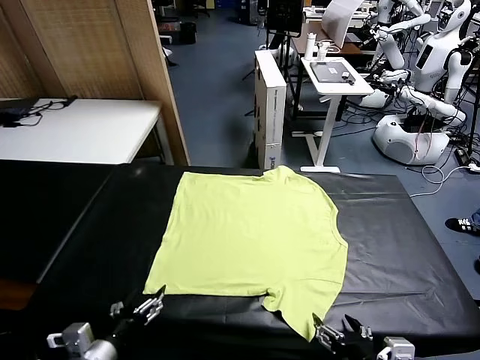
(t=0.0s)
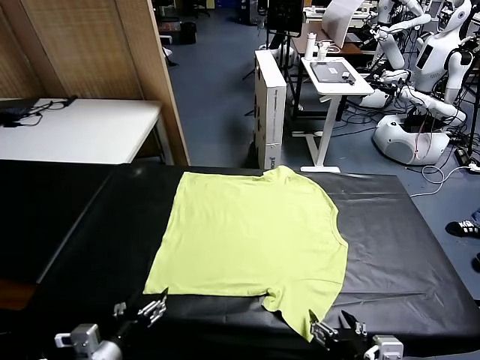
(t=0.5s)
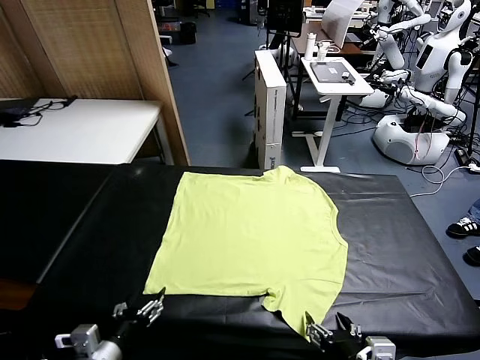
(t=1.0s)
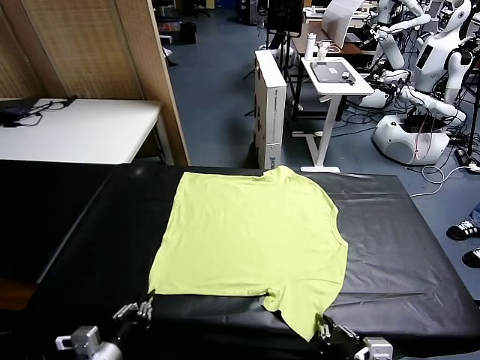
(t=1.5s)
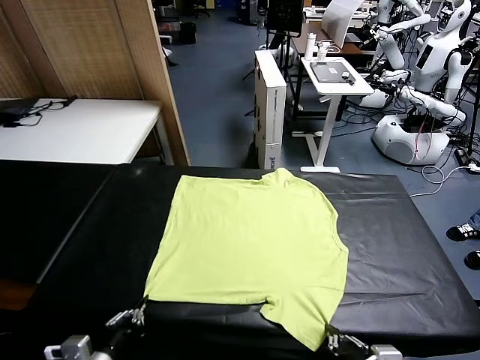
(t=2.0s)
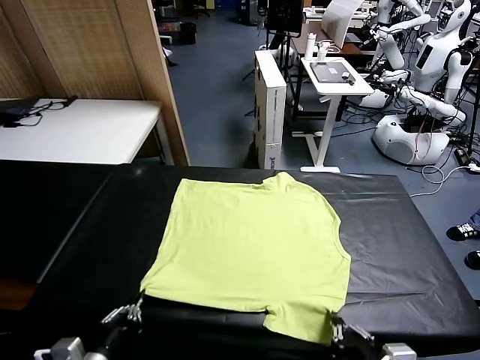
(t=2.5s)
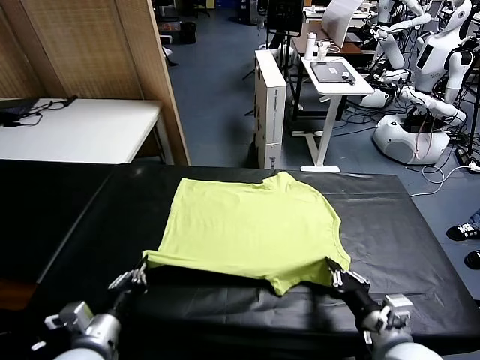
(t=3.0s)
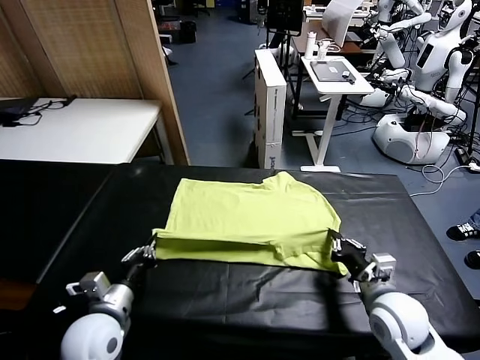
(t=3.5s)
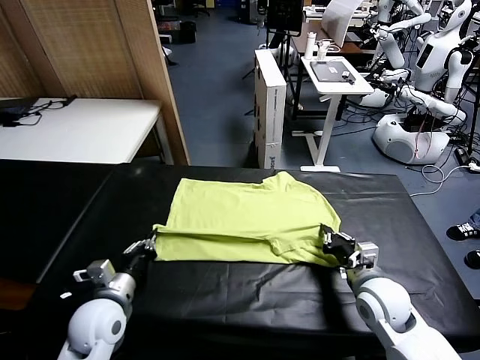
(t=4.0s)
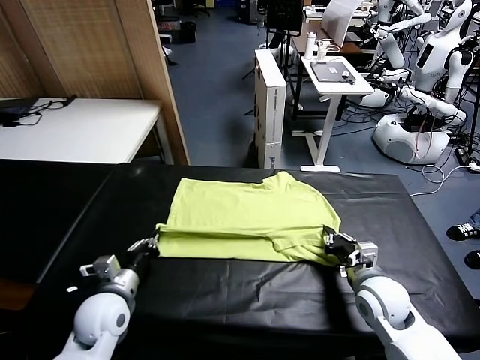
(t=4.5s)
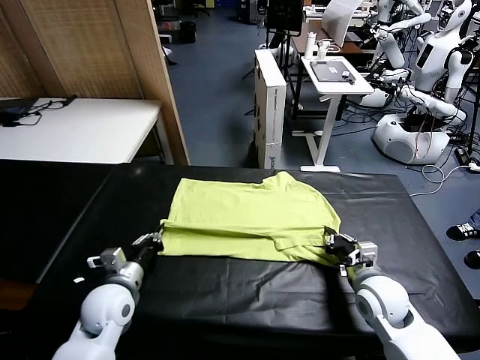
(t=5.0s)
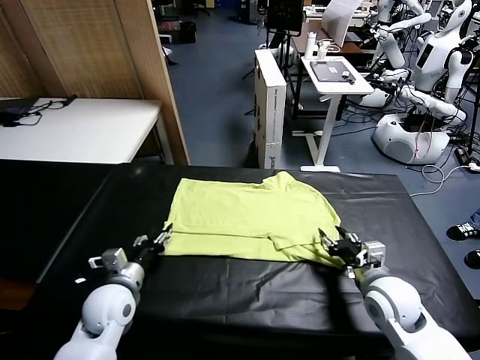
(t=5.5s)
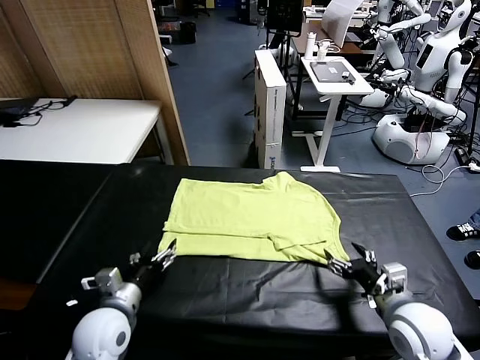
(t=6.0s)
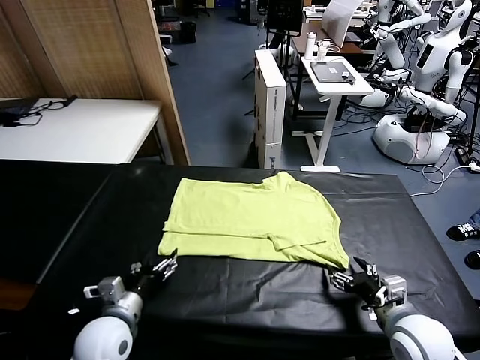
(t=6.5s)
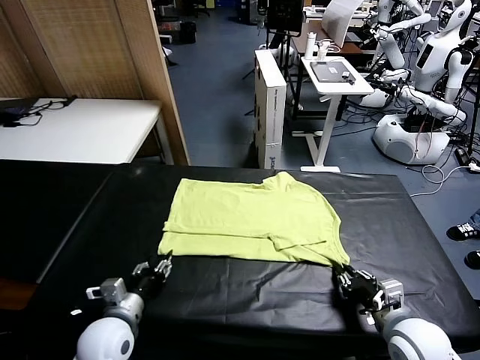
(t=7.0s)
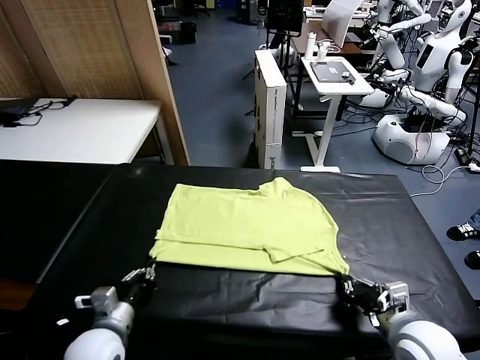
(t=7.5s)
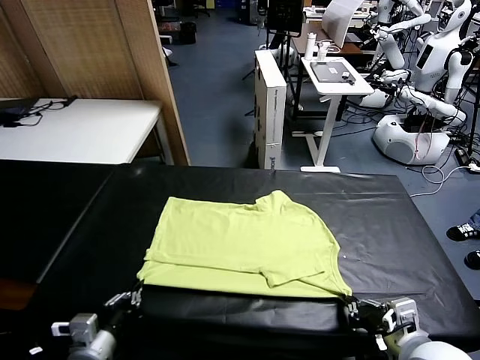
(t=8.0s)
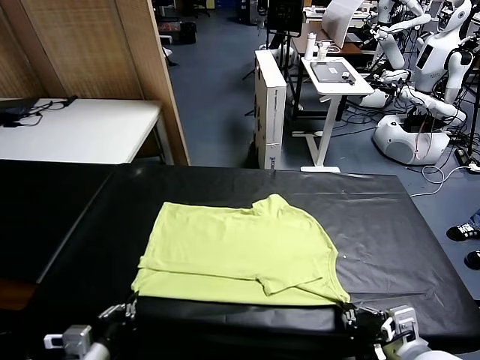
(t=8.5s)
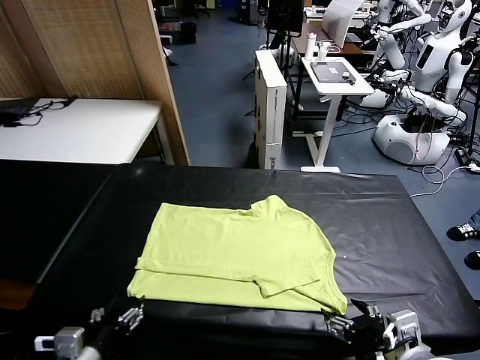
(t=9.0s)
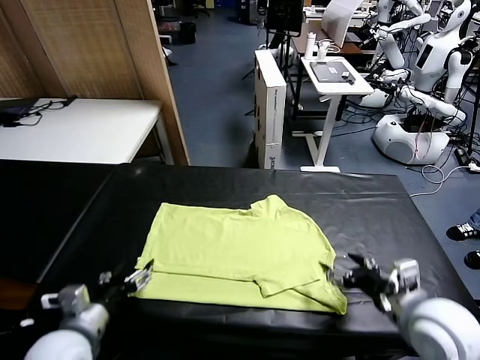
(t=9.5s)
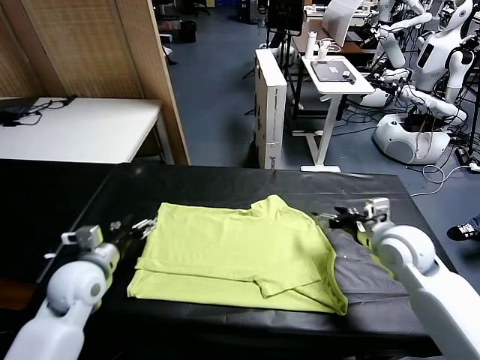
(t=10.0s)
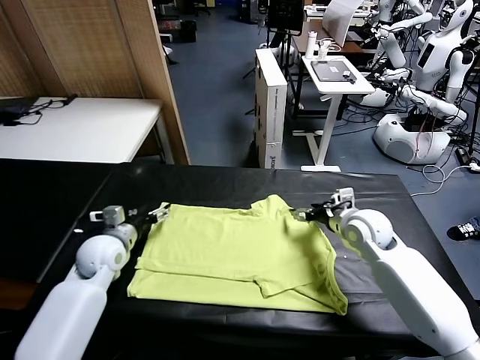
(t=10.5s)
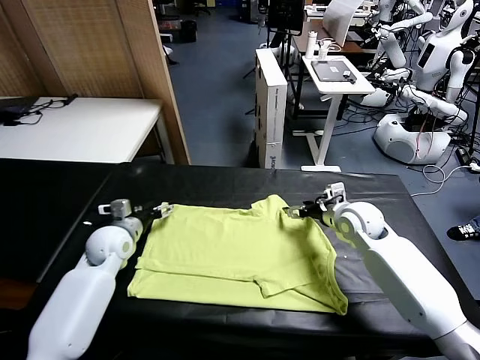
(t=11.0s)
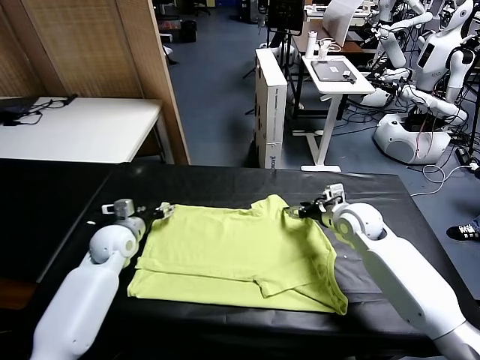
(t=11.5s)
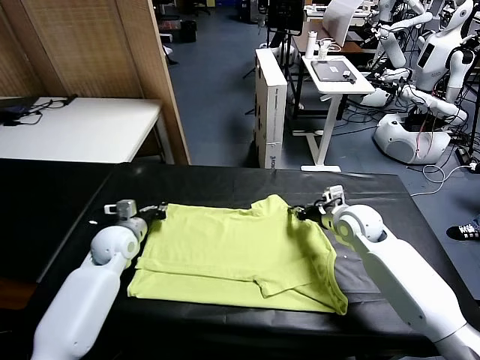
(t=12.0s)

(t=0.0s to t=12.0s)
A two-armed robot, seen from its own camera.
Task of the whole recording: fold and organize the clothes.
Step, t=0.0s - t=1.5s: use both grippers simultaneously to clamp the lower edge of the clothing fabric.
Step, t=2.0s - t=5.5s: use both grippers to drag the lower edge of the fabric forward and fold it over the upper edge.
Step, t=6.0s - t=9.0s: Drag the clothes downward with both gripper.
t=2.0s - t=4.0s: The two grippers go about 20 cm forward.
t=4.0s - t=6.0s: The right gripper moves backward, some 10 cm, and opens its fingers. The left gripper opens up.
t=6.0s - t=8.0s: The left gripper shifts approximately 10 cm backward, and closes its fingers; the right gripper heads backward and upward, covering about 10 cm, and closes its fingers.
t=8.0s - t=10.0s: Both grippers move forward, about 25 cm. The left gripper opens. The right gripper opens.
t=10.0s - t=12.0s: The right gripper closes up. The left gripper shifts roughly 10 cm forward, and closes.

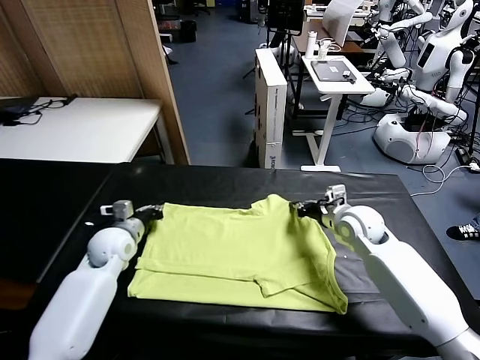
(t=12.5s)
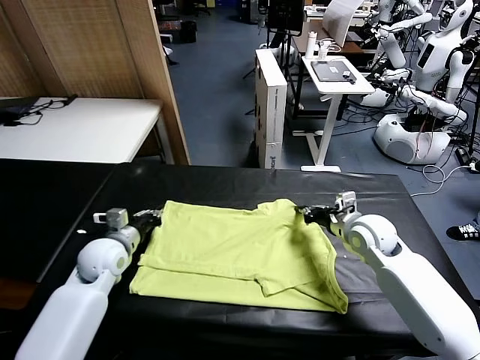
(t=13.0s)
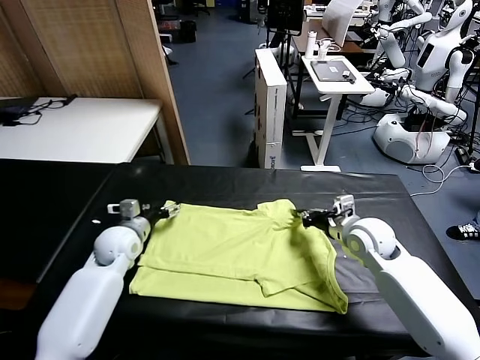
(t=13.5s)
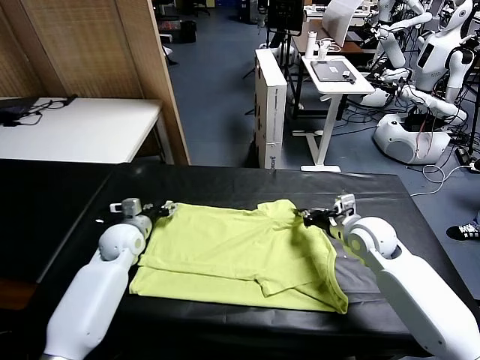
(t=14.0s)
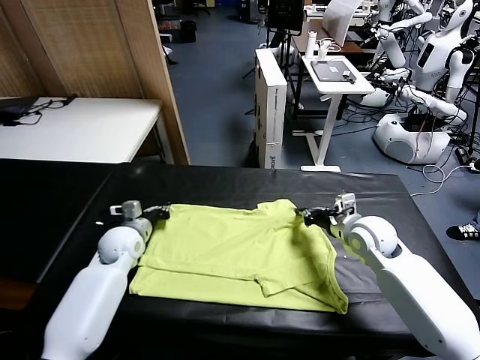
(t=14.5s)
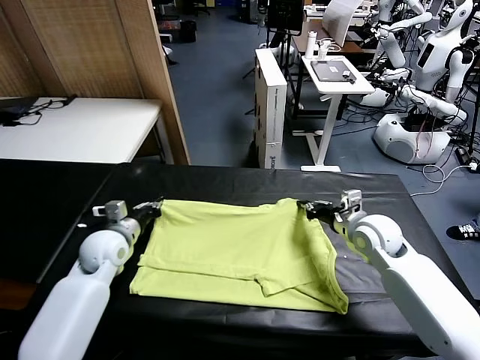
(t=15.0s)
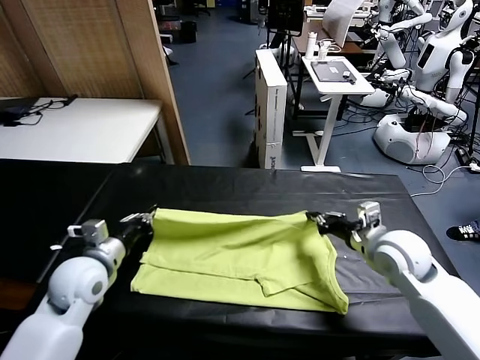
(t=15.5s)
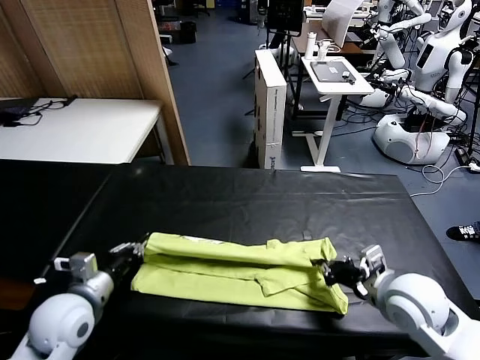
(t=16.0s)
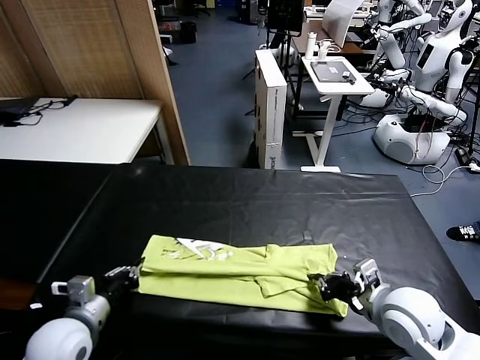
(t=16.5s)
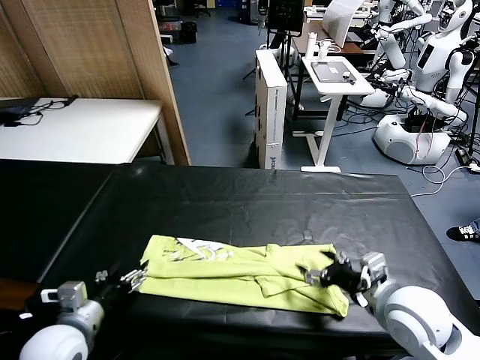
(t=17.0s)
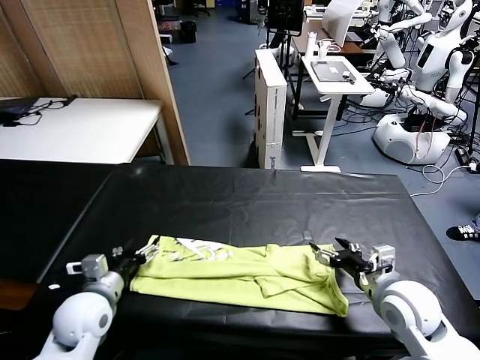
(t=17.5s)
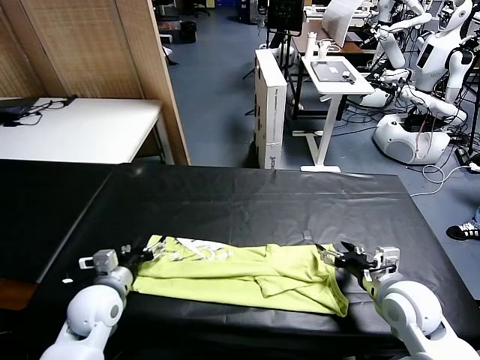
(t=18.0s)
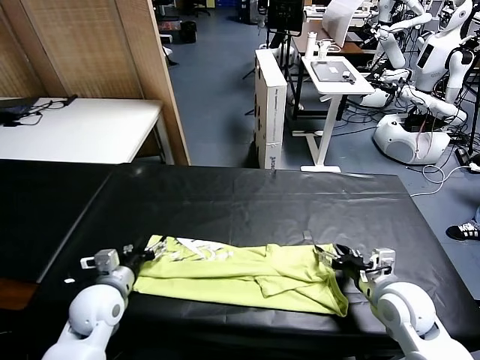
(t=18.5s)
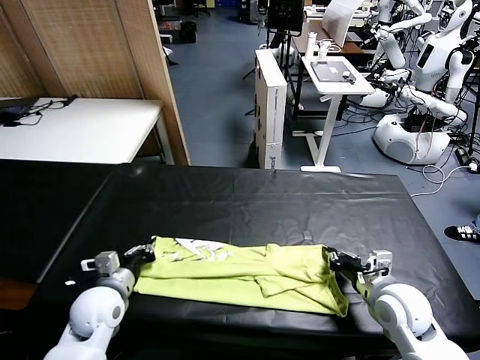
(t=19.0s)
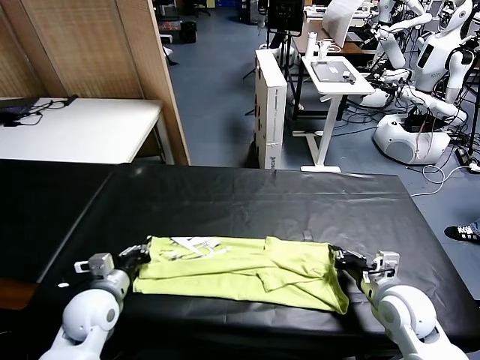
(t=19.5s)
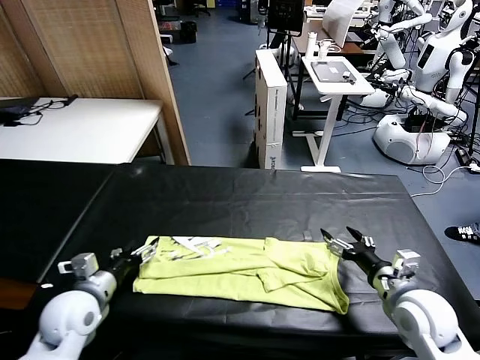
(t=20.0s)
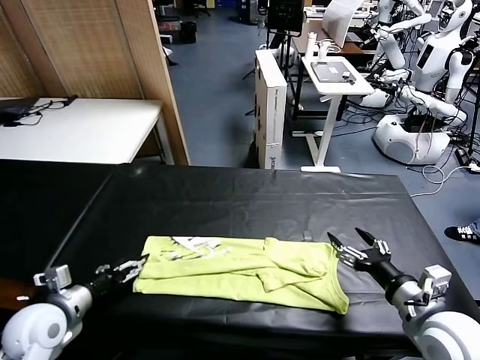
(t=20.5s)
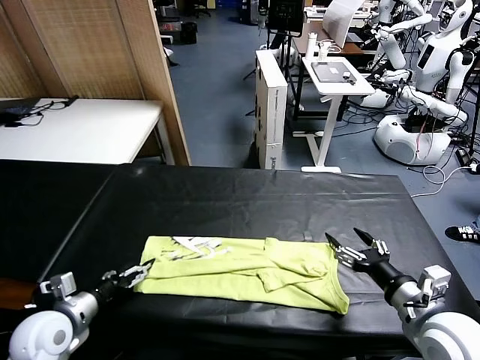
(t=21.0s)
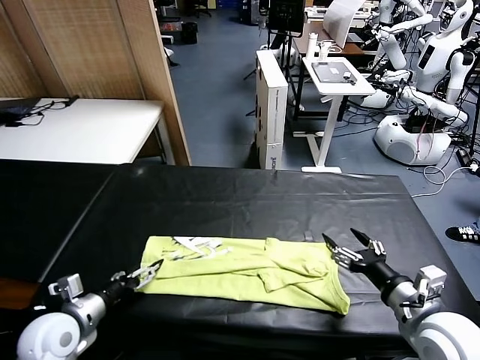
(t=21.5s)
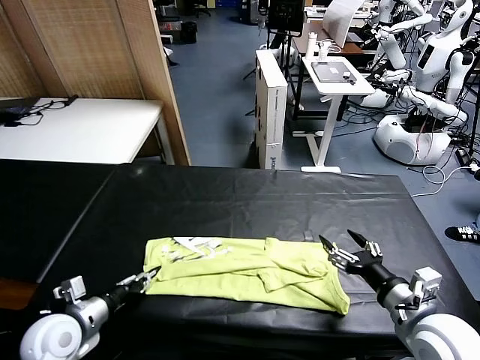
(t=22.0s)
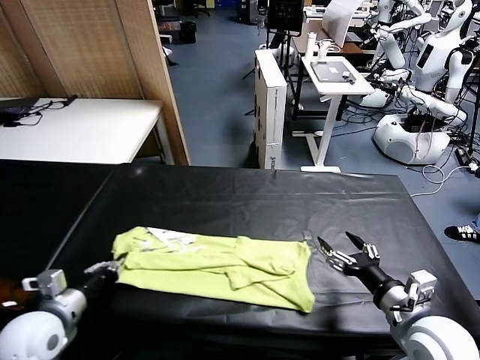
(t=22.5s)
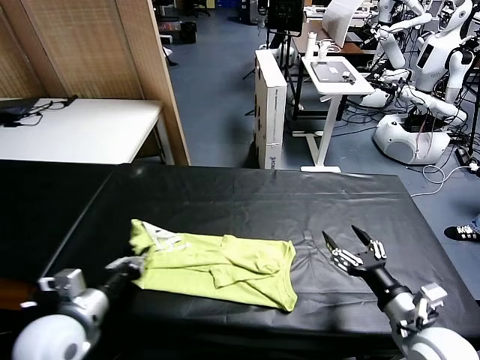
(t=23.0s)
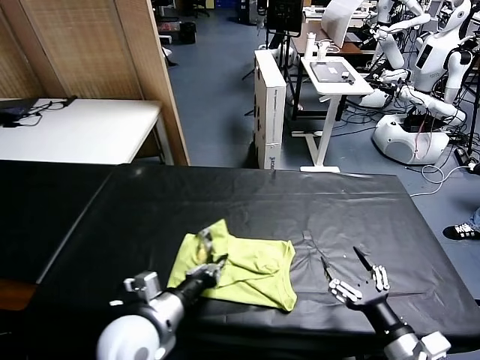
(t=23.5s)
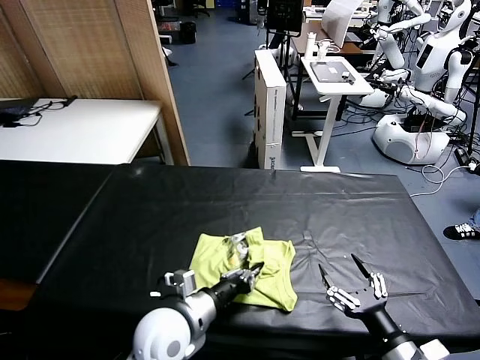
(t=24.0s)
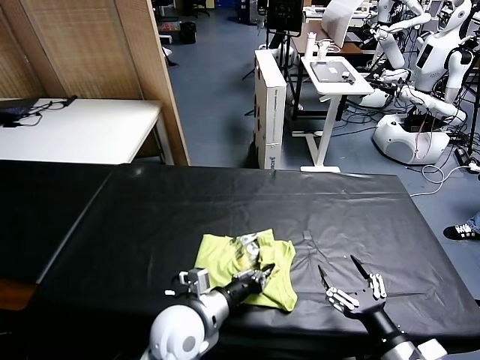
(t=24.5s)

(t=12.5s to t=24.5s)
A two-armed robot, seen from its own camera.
Task of the whole recording: fold and organize the clothes.
Step, t=12.5s - t=14.5s: use both grippers simultaneously to clamp the upper edge of the clothing fabric.
Step, t=15.0s - t=16.5s: use both grippers to drag the upper edge of the fabric backward and fold it over the lower edge.
Step, t=17.0s - t=22.0s: use the left gripper to clamp the left edge of the fabric.
t=12.5s - t=14.5s: The left gripper opens, then closes once more.
t=14.5s - t=16.5s: Both grippers travel together backward, roughly 20 cm. The right gripper opens up.
t=16.5s - t=18.5s: The left gripper is displaced forward by about 10 cm, and opens and closes again, while the right gripper goes approximately 5 cm downward, and opens and closes again.
t=18.5s - t=20.5s: The right gripper goes approximately 10 cm backward and upward, and opens up; the left gripper is displaced to the left and backward by approximately 10 cm, and opens.
t=20.5s - t=22.5s: The left gripper closes its fingers.
t=22.5s - t=24.5s: The right gripper goes about 10 cm backward; the left gripper is displaced to the right by approximately 25 cm.

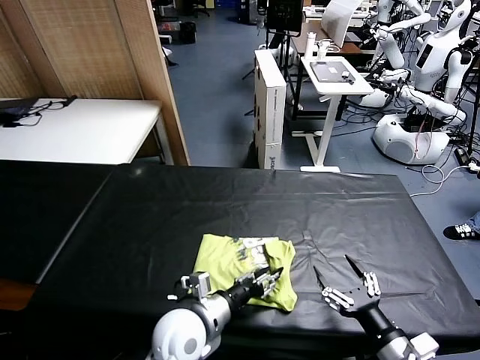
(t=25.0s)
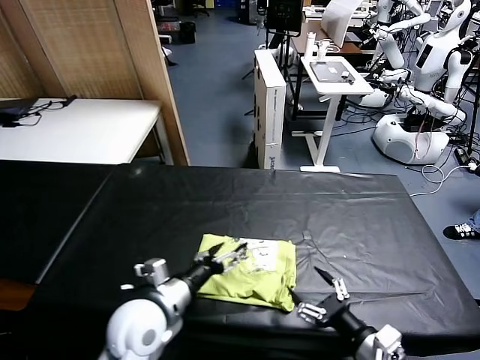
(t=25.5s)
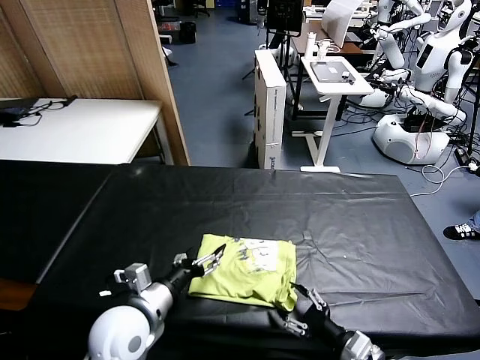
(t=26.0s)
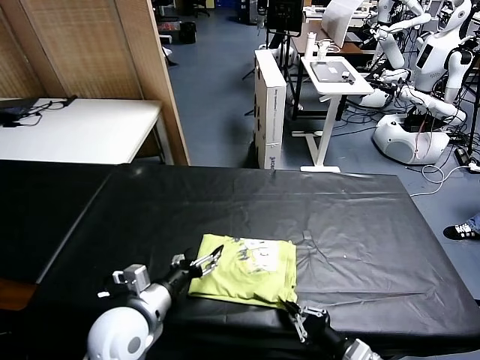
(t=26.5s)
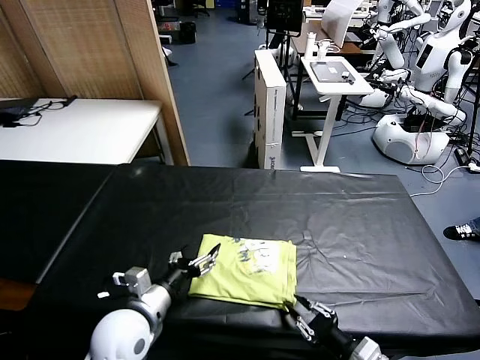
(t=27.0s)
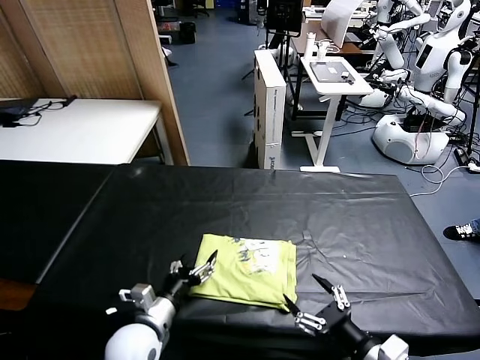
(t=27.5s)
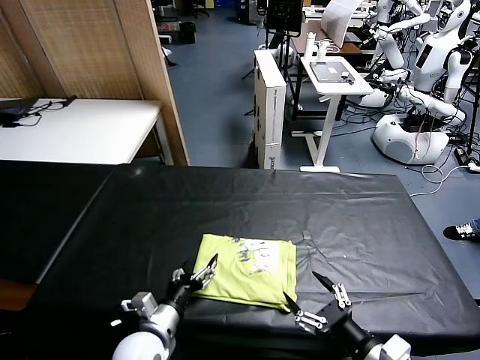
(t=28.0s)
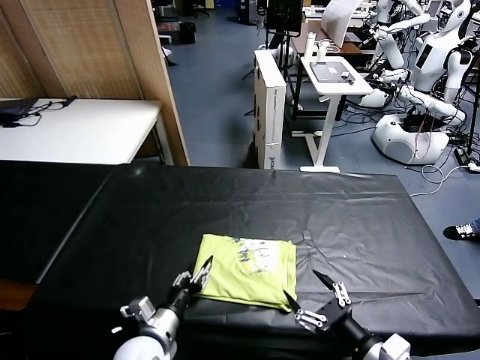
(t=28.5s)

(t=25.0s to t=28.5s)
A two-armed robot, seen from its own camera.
Task of the whole recording: fold and organize the clothes.
t=25.0s - t=27.0s: The left gripper heads to the left, covering approximately 10 cm. The right gripper closes, then reopens.
t=27.0s - t=28.5s: The left gripper goes roughly 5 cm downward, and closes.
